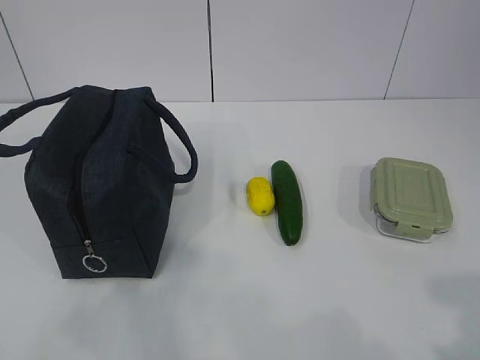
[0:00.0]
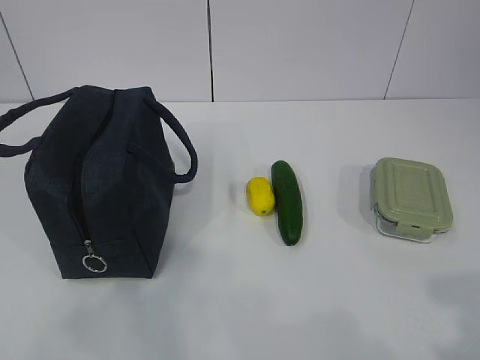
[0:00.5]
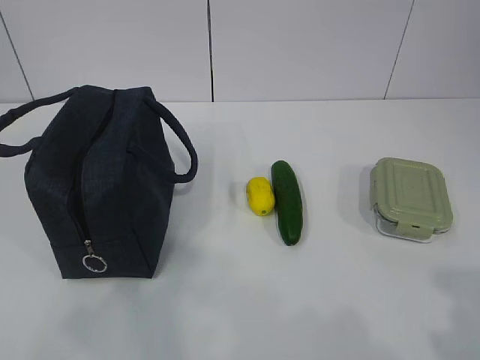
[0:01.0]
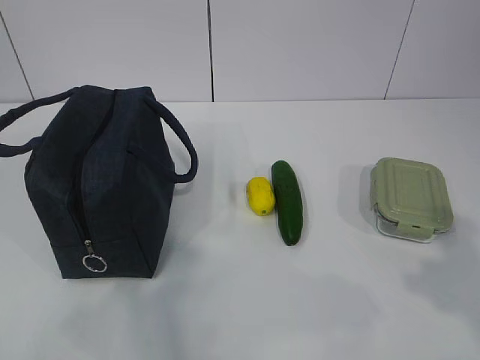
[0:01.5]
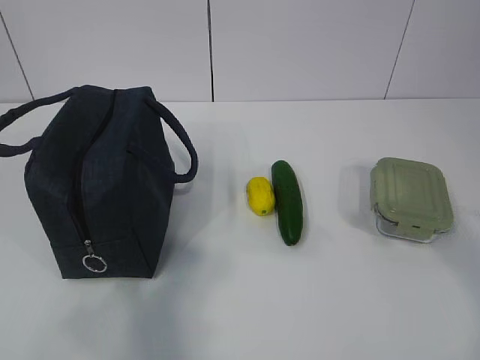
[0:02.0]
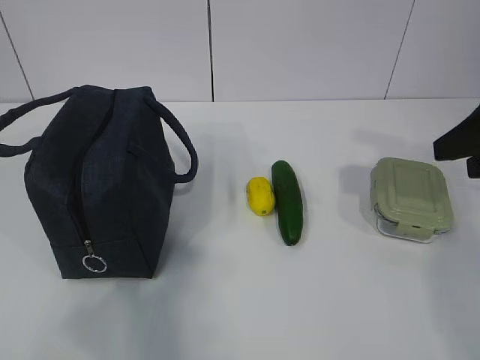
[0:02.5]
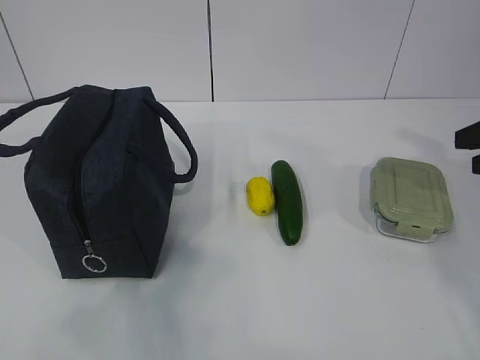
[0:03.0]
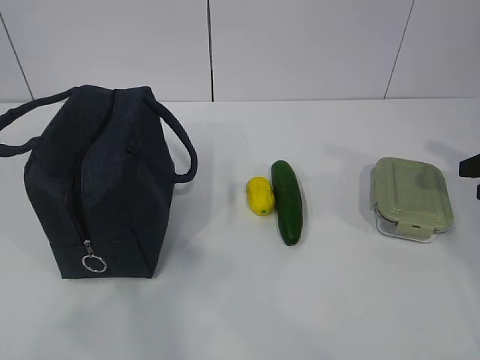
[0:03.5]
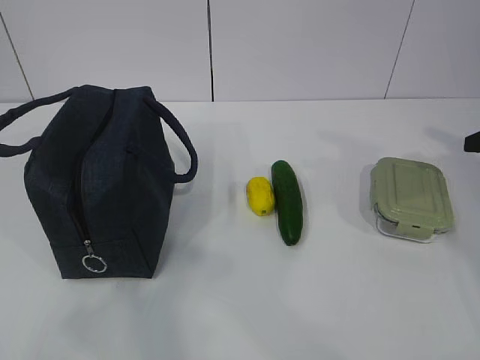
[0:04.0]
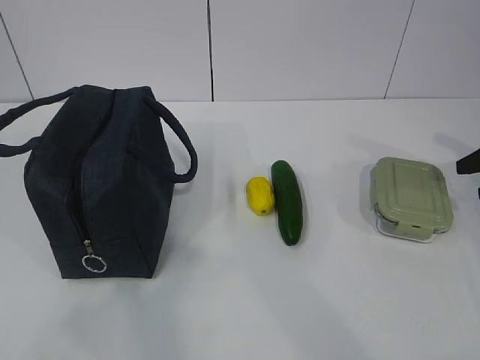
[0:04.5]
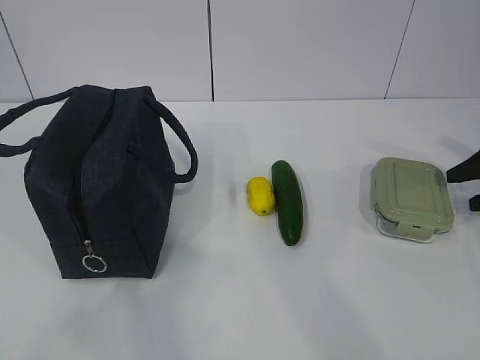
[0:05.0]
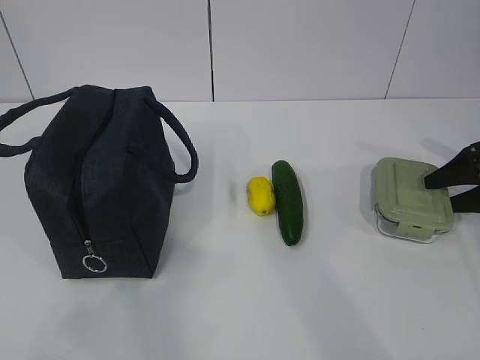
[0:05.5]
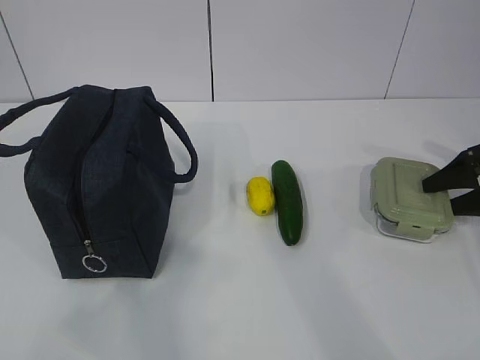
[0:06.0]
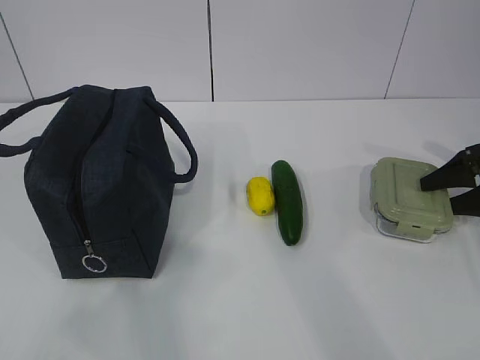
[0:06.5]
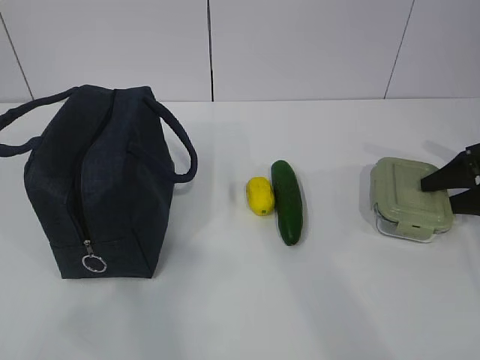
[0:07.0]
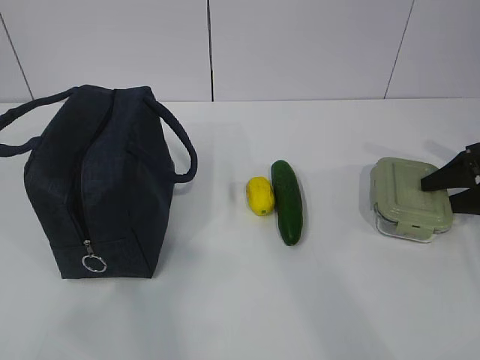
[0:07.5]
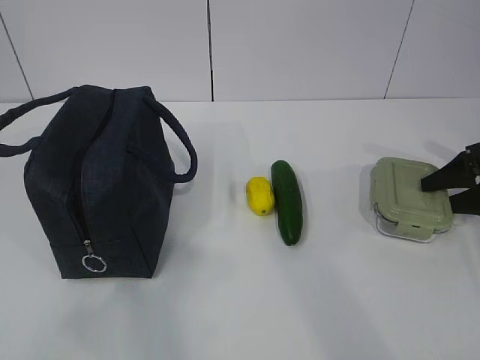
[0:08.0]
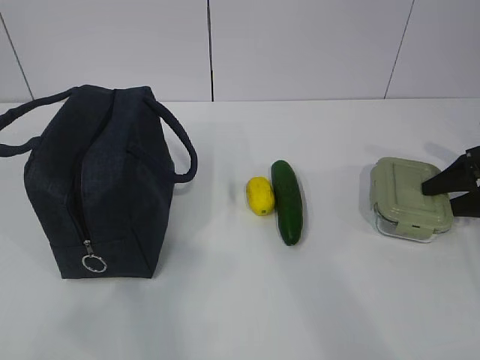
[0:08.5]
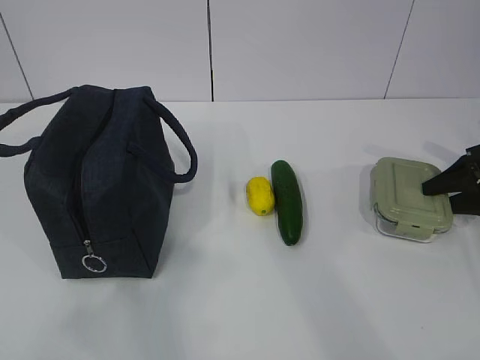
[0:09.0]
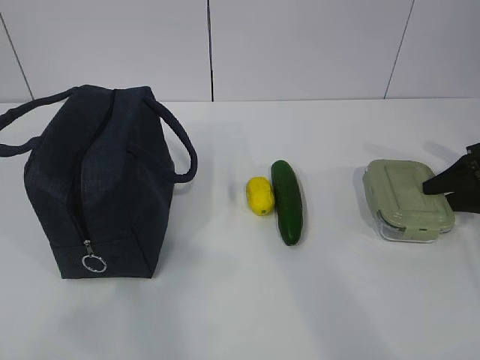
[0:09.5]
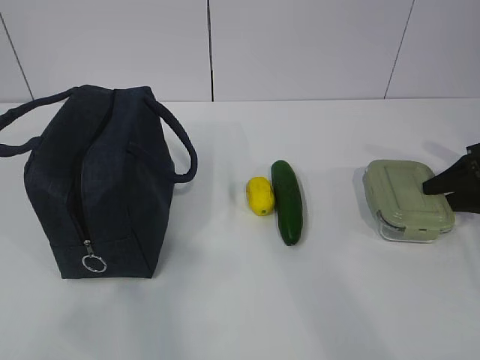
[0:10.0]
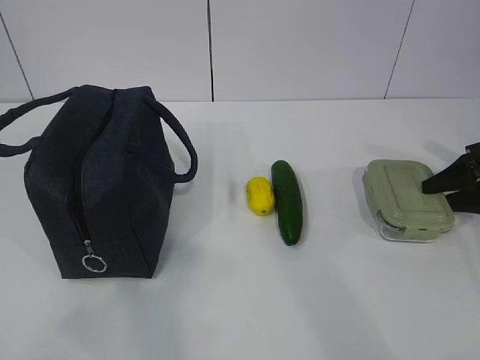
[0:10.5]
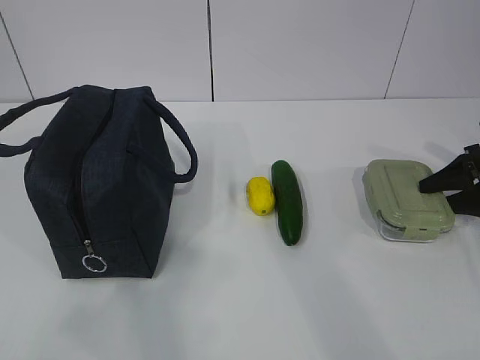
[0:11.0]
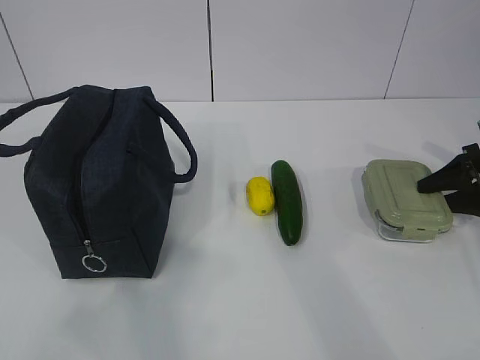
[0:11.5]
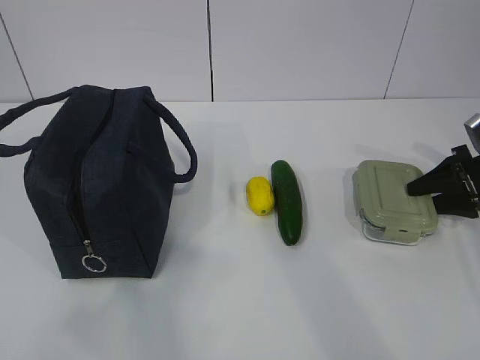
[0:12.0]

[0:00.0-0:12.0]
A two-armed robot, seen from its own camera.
0:04.0 to 0:06.0: The right gripper heads downward and forward, covering roughly 10 cm.
0:06.0 to 0:10.0: The two grippers keep their place.
0:10.0 to 0:12.0: There are only small adjustments of the grippers.

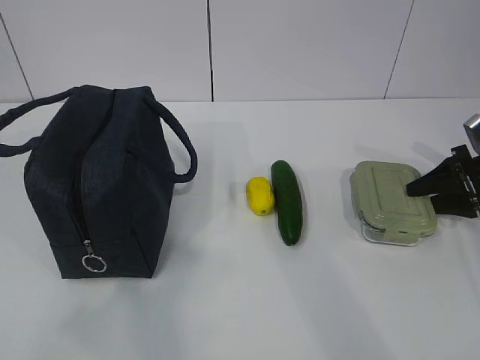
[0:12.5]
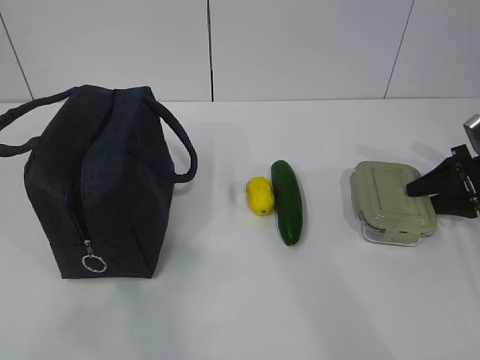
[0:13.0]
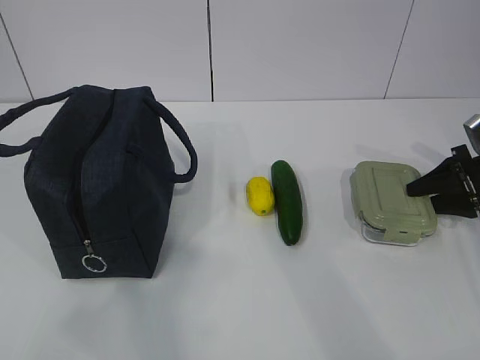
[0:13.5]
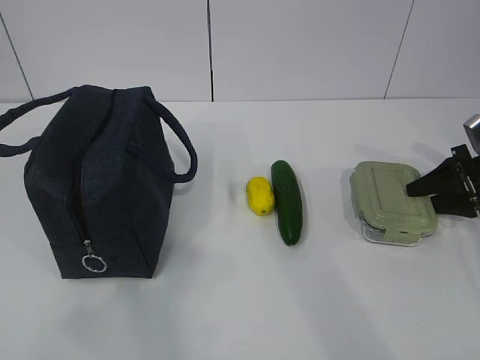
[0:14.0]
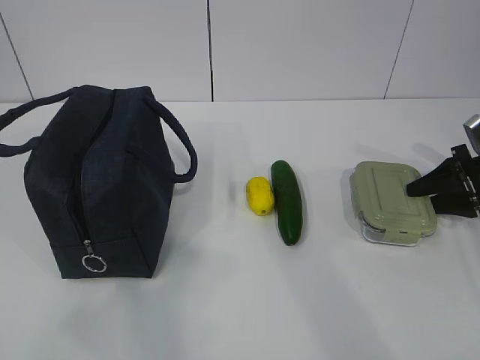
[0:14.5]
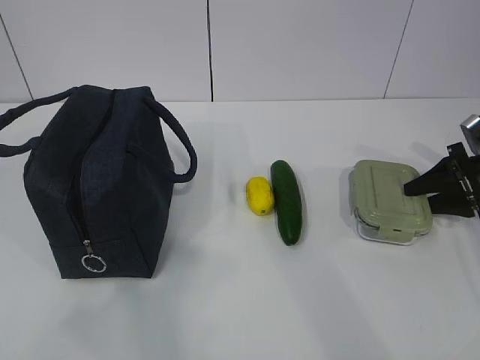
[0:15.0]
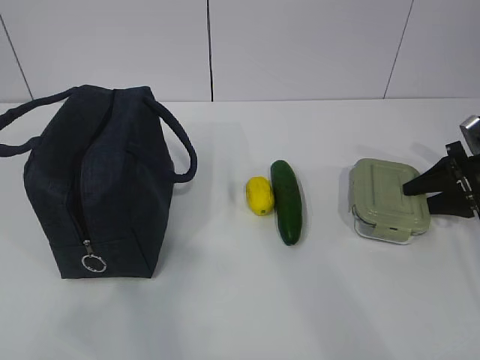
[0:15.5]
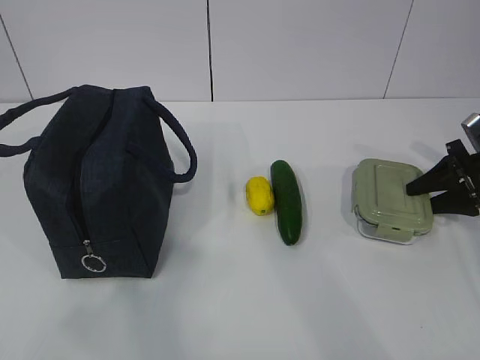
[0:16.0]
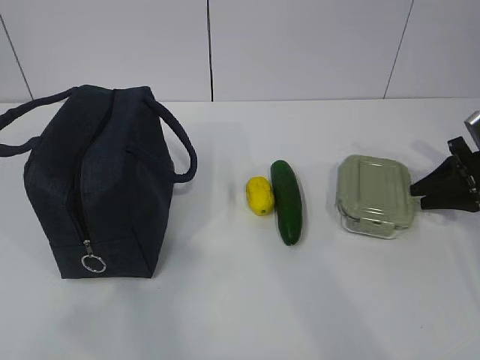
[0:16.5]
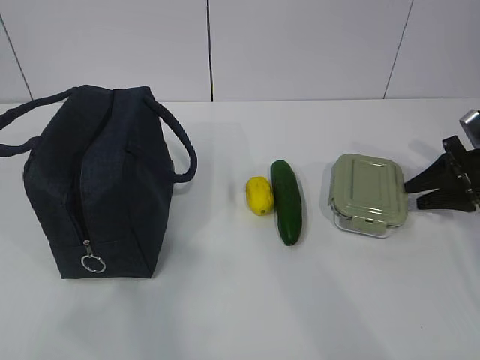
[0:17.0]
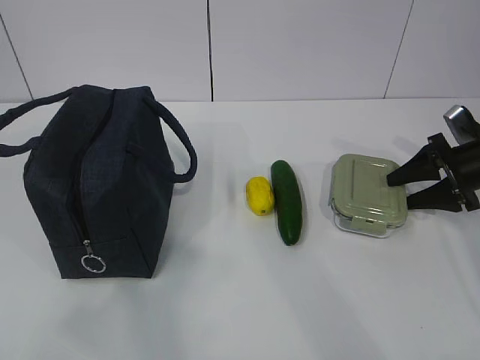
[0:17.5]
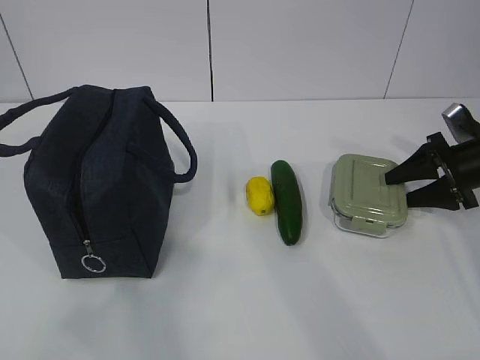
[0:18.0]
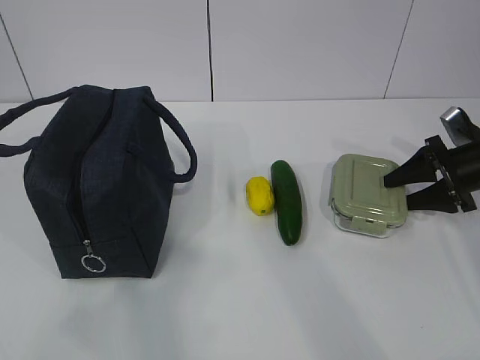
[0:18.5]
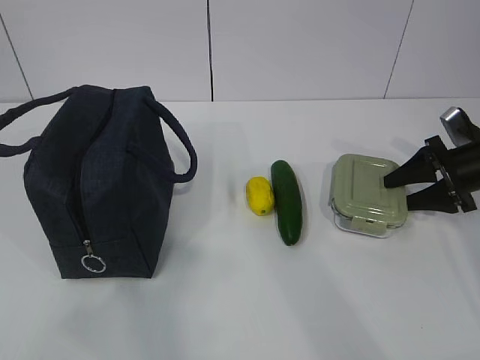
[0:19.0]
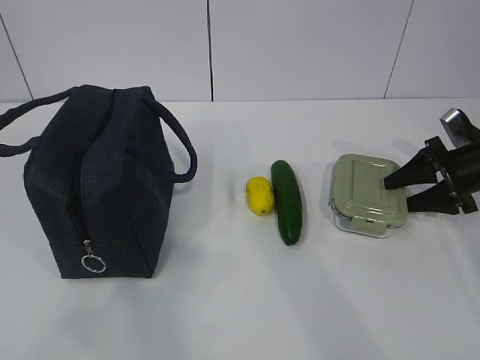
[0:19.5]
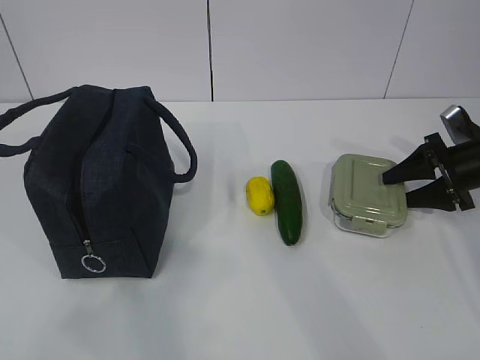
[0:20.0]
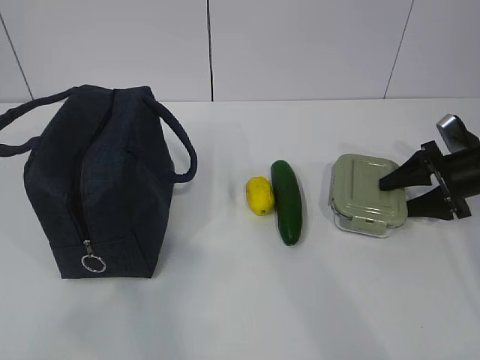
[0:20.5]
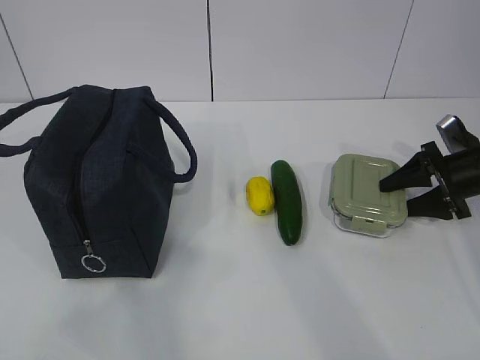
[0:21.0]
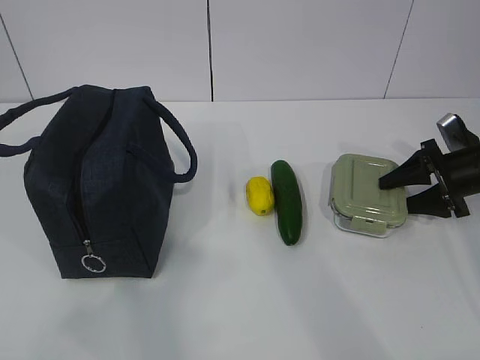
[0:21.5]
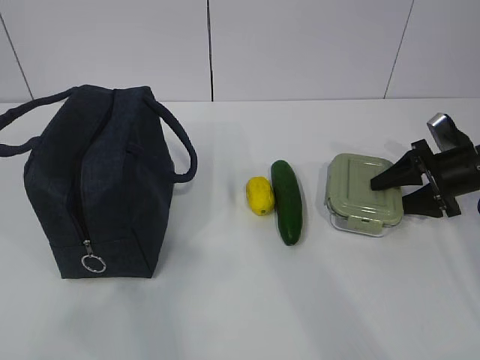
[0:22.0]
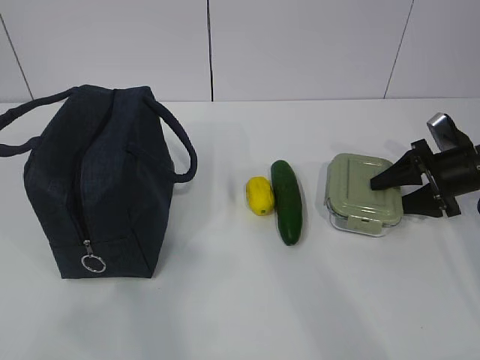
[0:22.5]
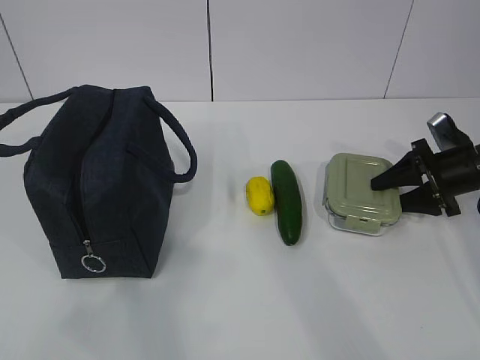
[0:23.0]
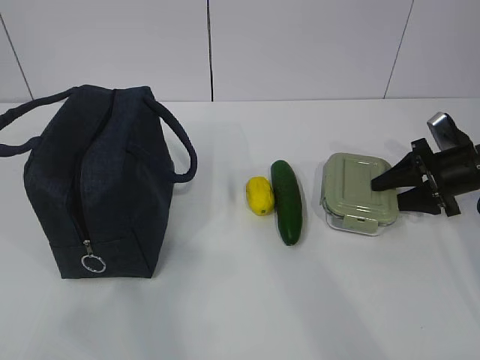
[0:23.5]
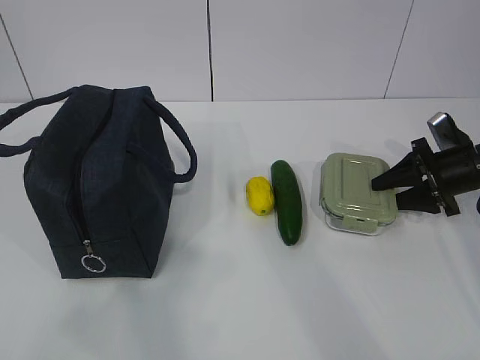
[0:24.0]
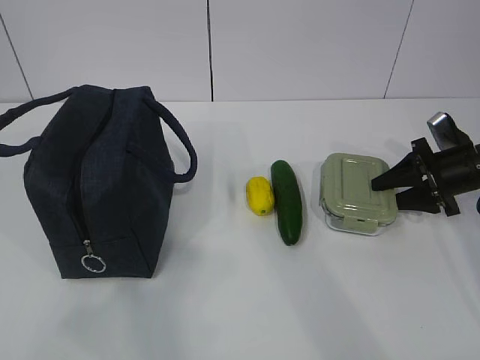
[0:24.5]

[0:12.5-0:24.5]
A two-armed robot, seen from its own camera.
Step, 0:12.5 to 0:24.0: Grab the lunch box with your right hand.
0:12.5 to 0:14.5: Neither gripper changes place.
0:14.5 to 0:16.5: There are only small adjustments of the grippers.
0:16.5 to 0:18.5: The right gripper opens up.
0:18.5 to 0:20.5: Neither gripper changes place.
0:20.5 to 0:24.5: Both grippers stay put.

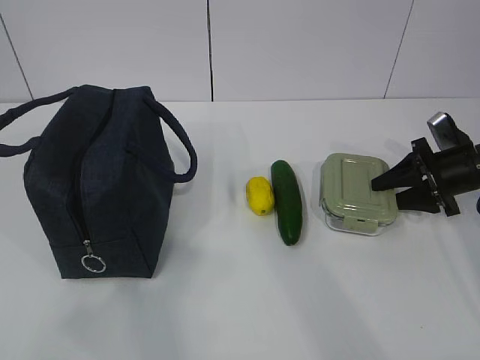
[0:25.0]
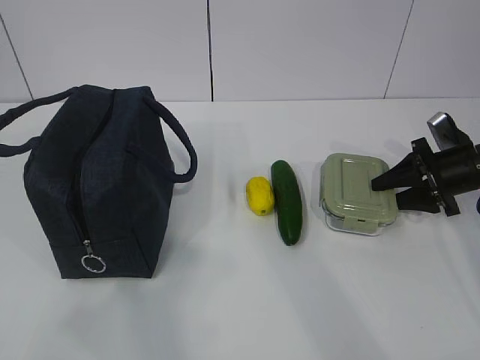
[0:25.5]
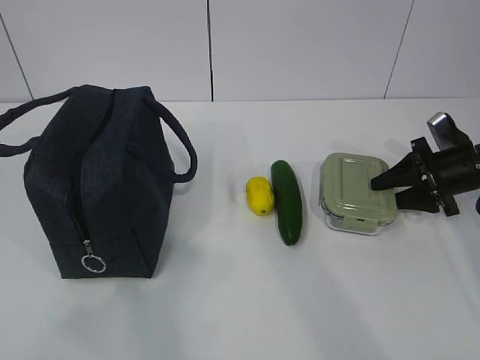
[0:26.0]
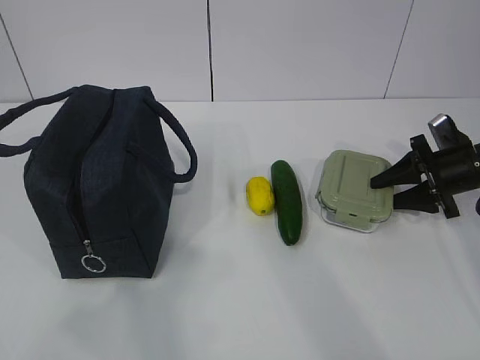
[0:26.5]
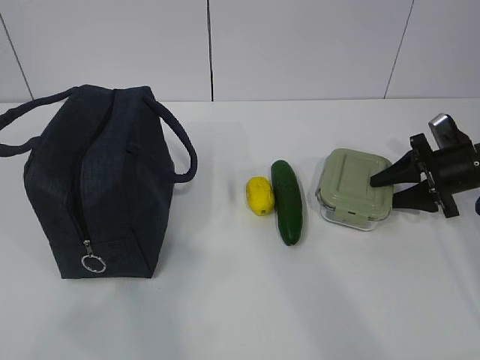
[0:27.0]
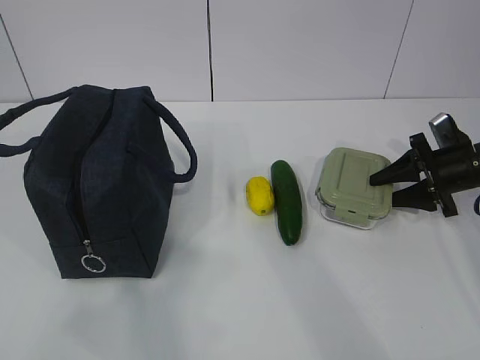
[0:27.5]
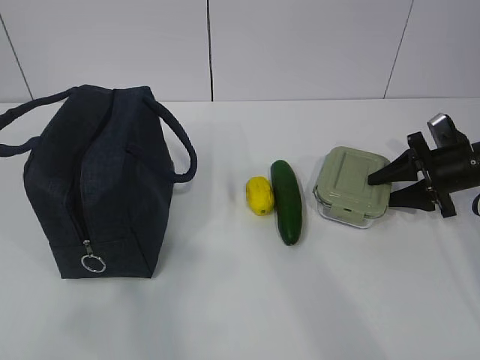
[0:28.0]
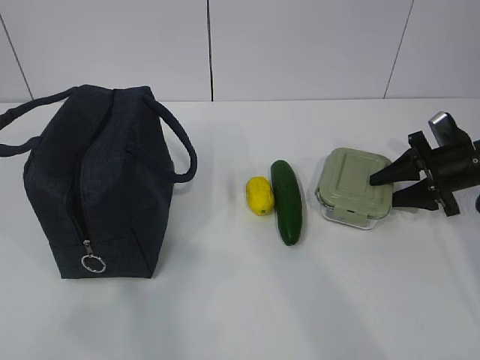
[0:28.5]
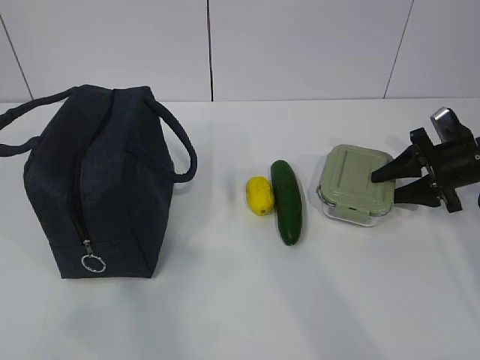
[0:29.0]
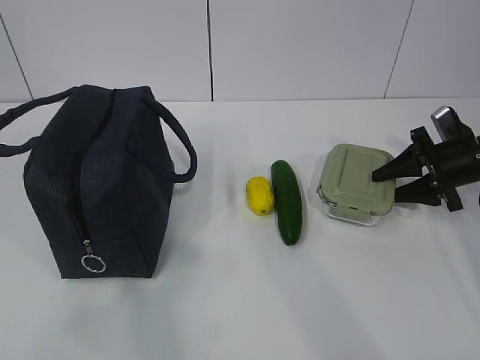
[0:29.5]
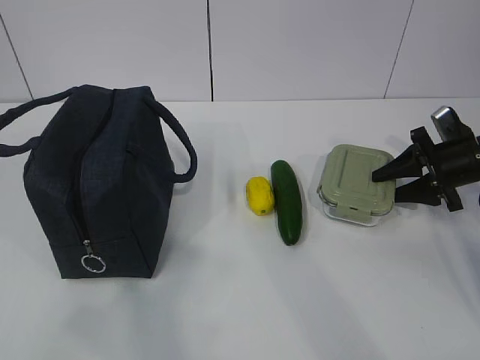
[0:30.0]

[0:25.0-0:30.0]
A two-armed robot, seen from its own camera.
0:25.0 to 0:27.5: The grippers make only small movements.
0:27.5 to 0:30.0: Neither gripper changes place.
